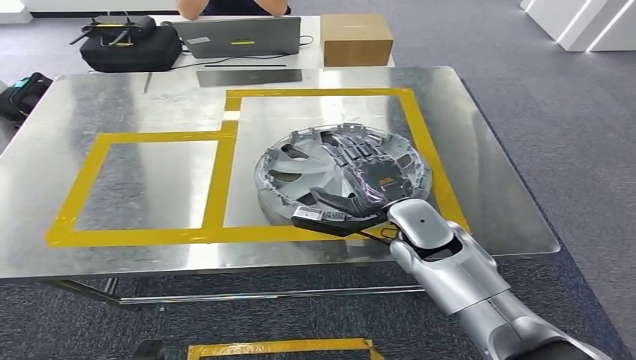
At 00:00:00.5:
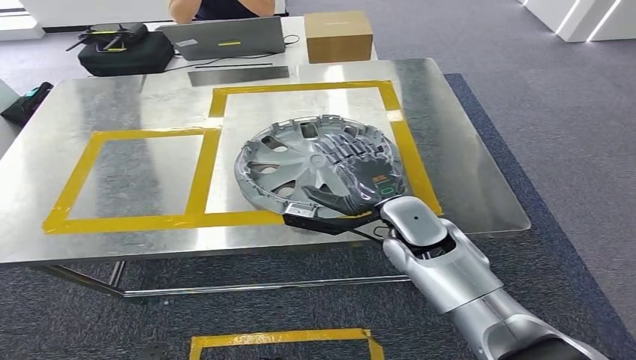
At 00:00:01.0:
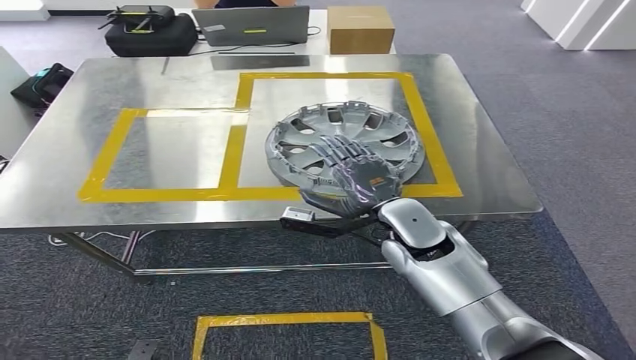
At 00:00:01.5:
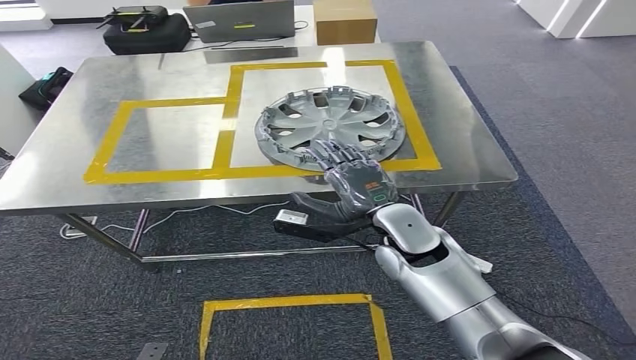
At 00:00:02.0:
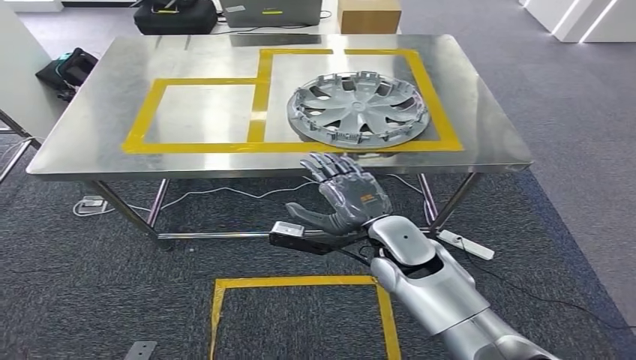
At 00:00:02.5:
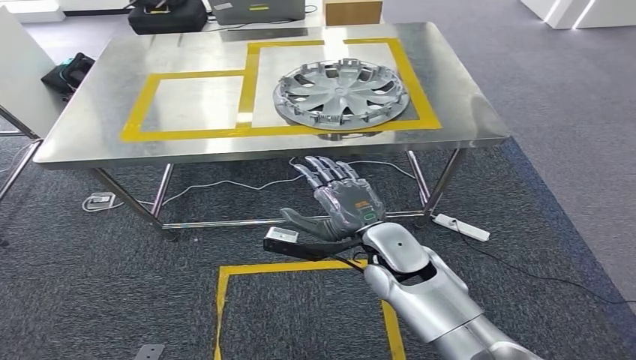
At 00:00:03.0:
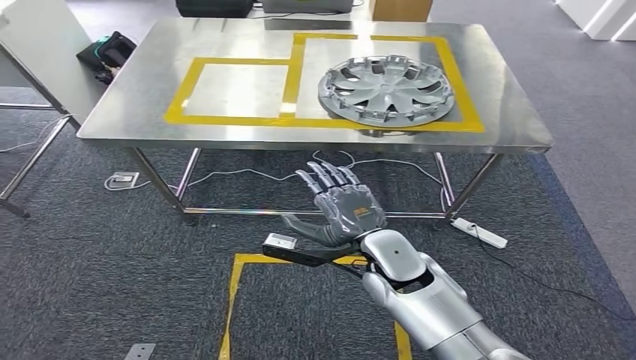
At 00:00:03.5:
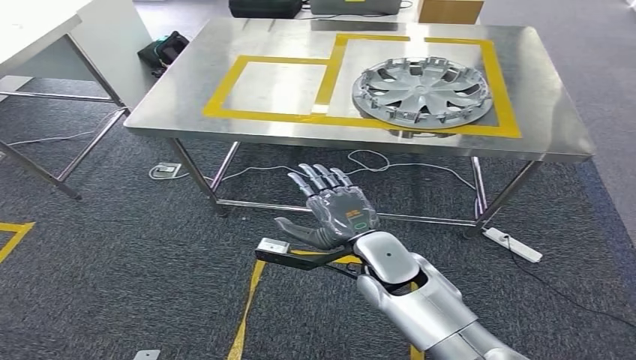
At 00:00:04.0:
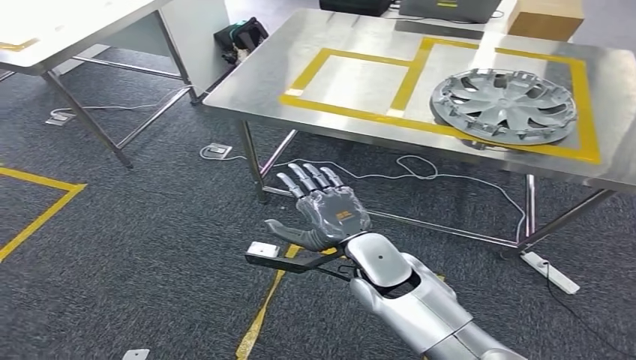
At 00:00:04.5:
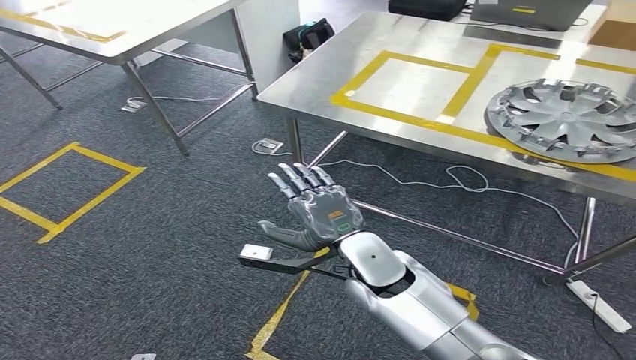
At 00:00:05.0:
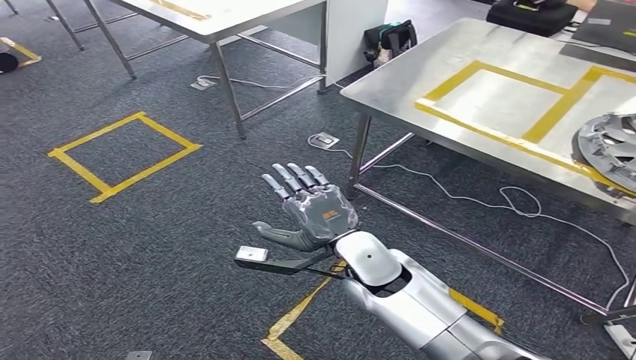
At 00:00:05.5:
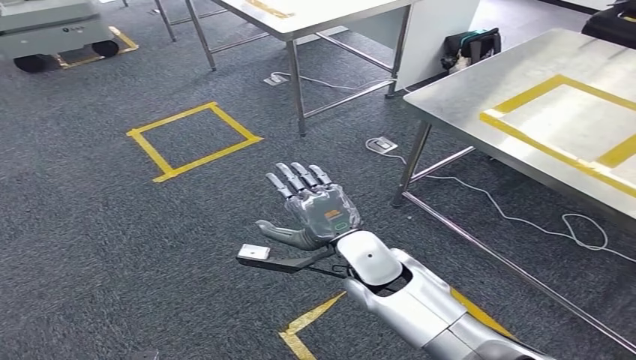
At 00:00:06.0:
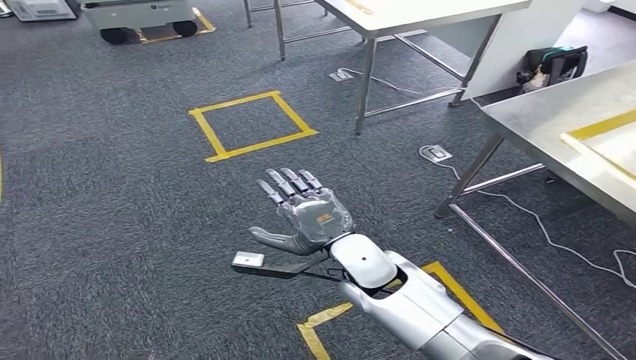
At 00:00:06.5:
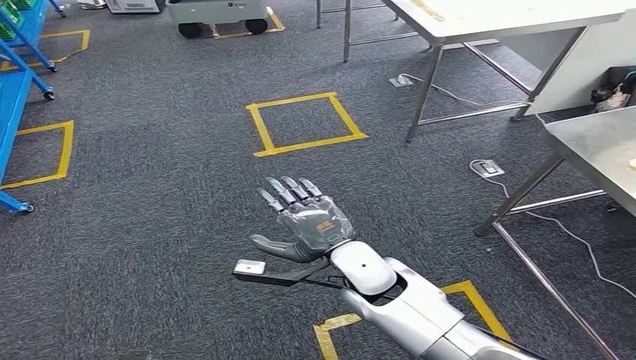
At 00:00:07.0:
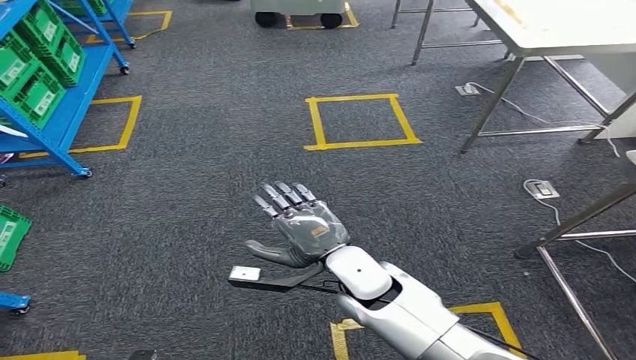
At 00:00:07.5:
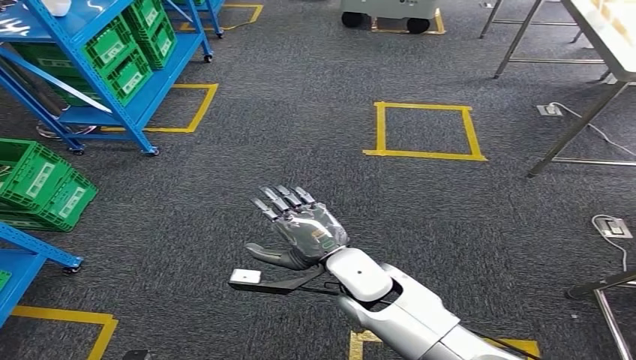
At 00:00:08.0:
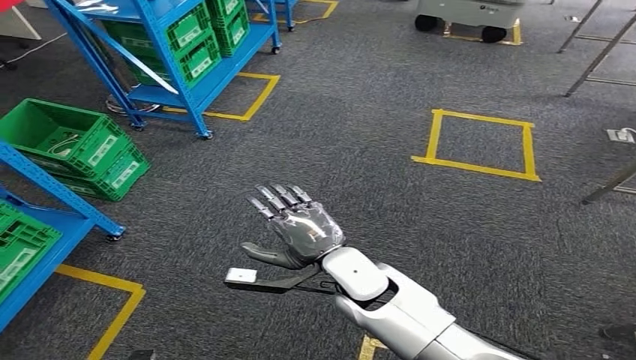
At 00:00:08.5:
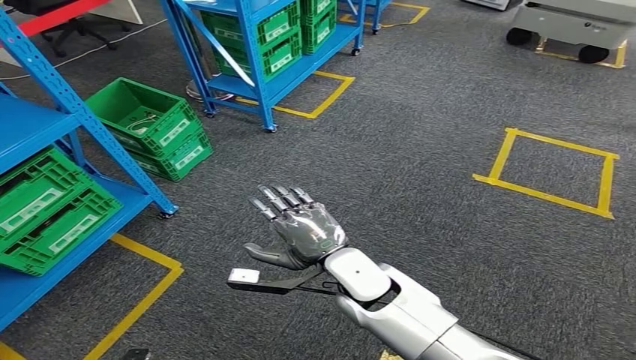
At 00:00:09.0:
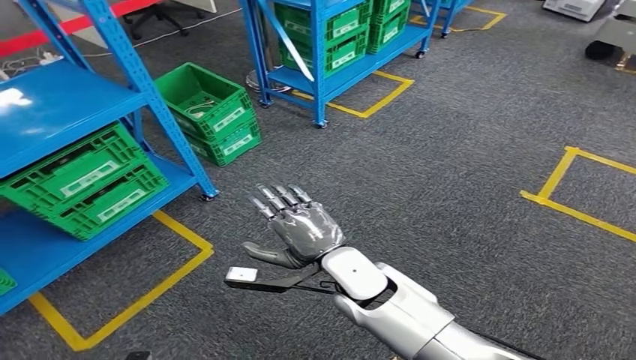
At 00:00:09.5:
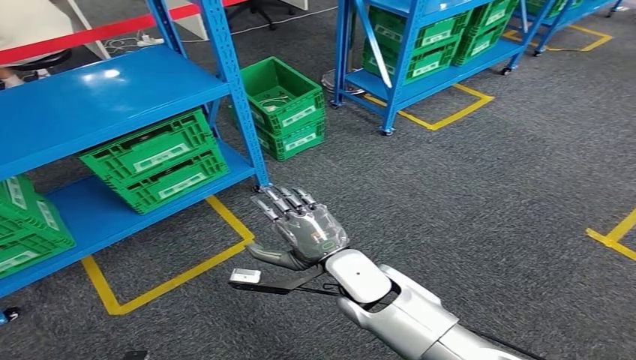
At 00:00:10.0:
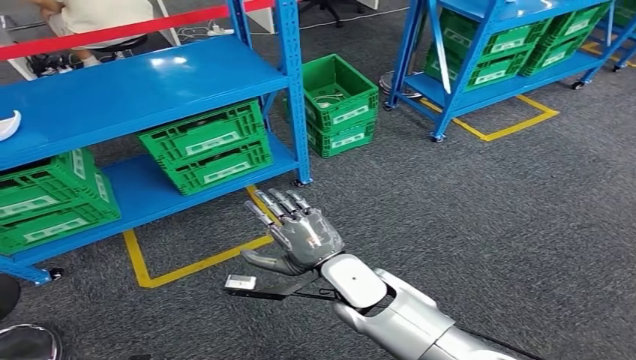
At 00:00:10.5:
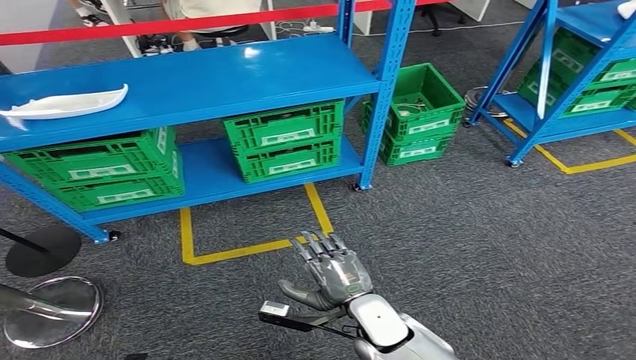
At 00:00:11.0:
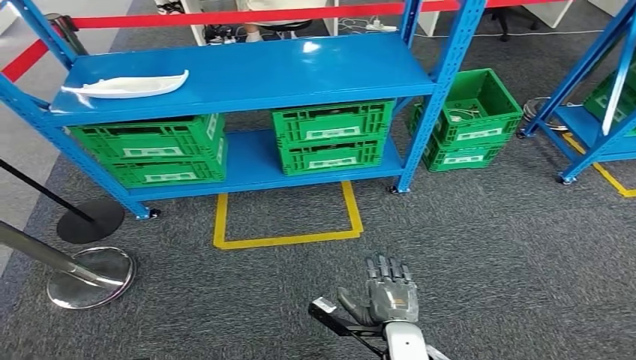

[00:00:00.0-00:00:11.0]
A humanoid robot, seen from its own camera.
Step, 00:00:00.0 to 00:00:02.5: Insert the small component into the corresponding slot on the workbench.

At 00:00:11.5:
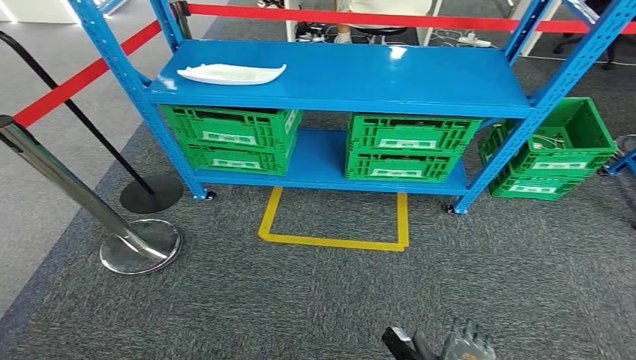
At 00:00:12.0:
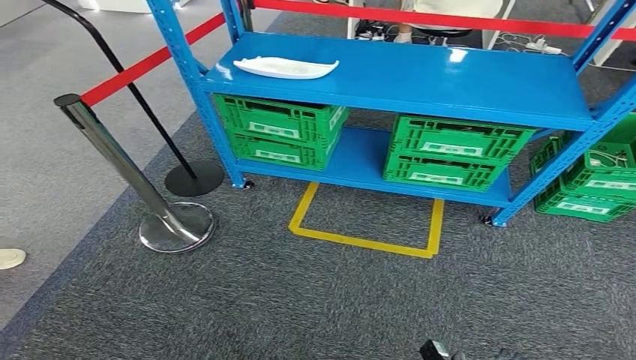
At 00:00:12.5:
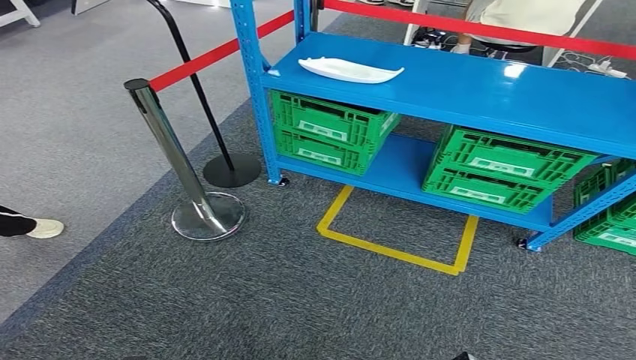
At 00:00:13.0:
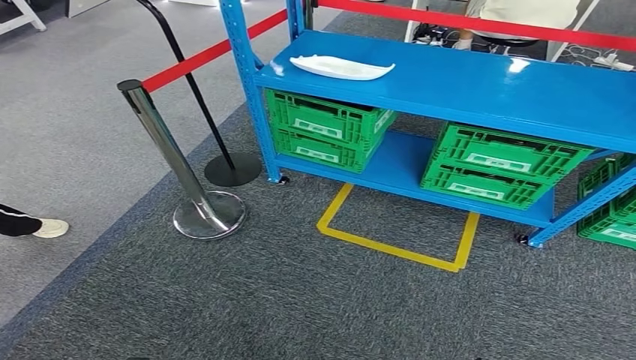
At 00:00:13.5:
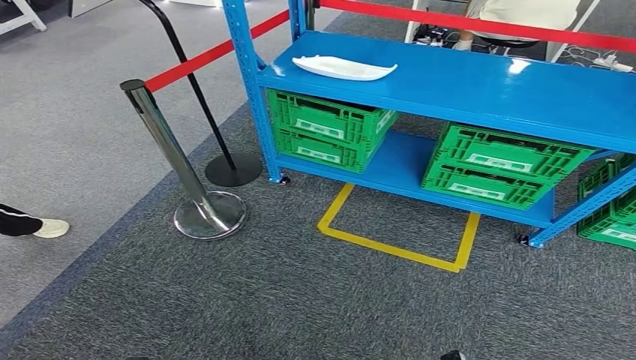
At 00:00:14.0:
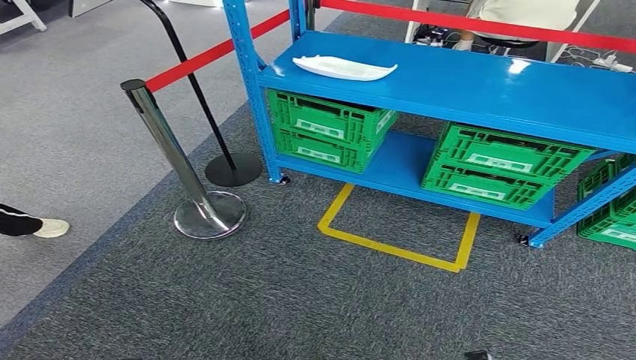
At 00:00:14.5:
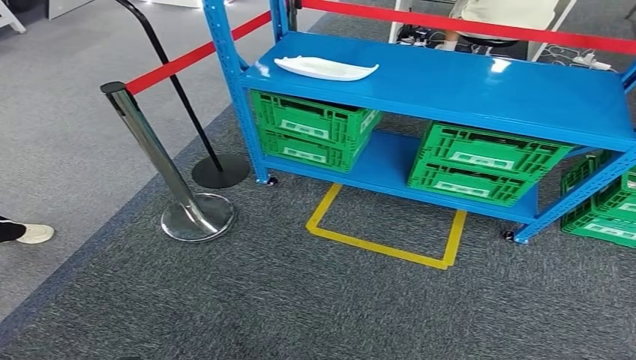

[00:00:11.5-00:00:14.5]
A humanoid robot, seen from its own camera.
Step, 00:00:11.5 to 00:00:14.5: Move to the initial position of the workbench.
